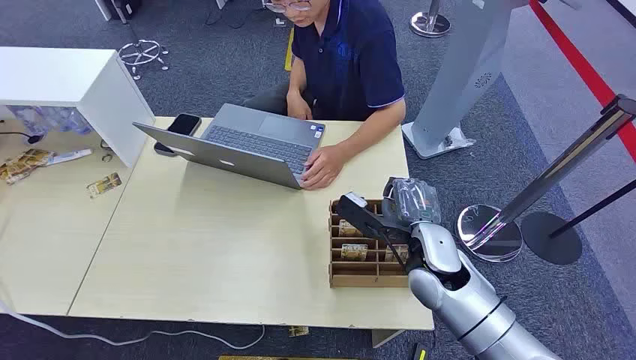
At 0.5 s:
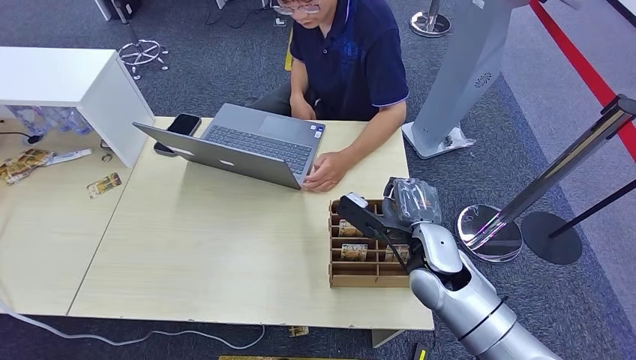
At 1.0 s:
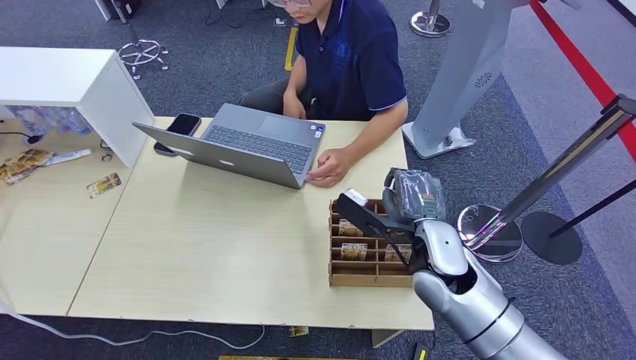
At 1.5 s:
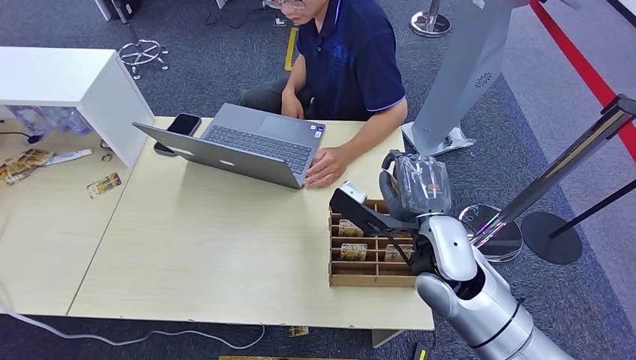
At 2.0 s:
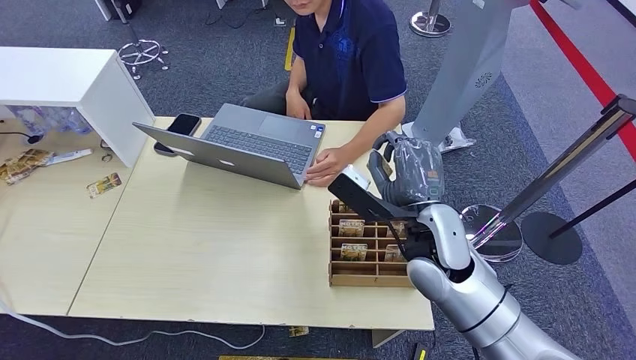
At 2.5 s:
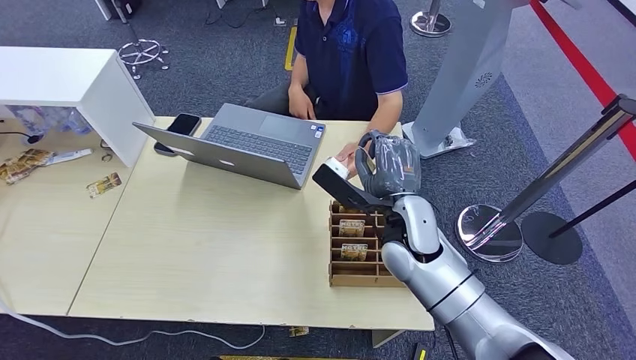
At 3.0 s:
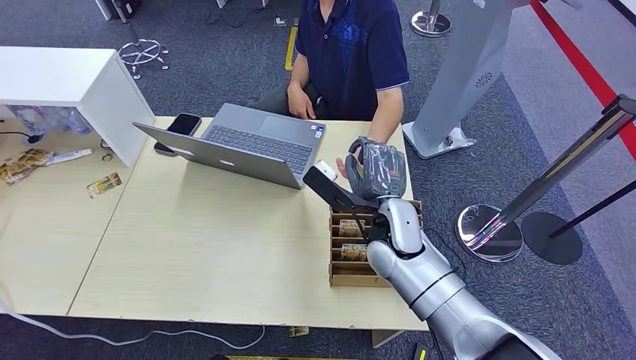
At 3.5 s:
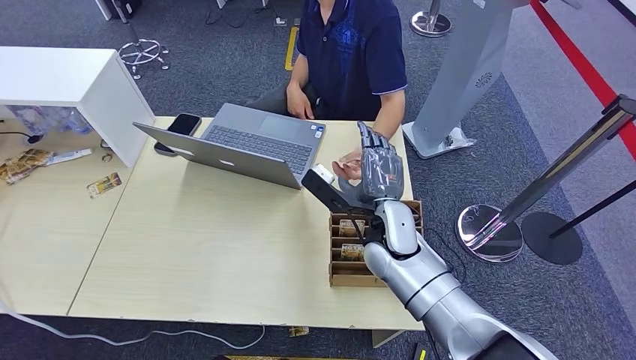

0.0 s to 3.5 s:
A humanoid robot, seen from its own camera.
Step, 0.0 to 1.0 s: Pick up the key card from the card box.
2.0 to 3.5 s: The right hand heads downward, covering some 5 cm.
